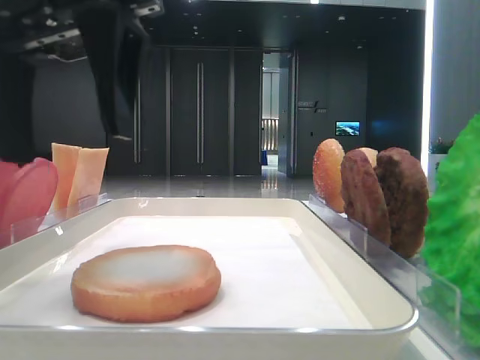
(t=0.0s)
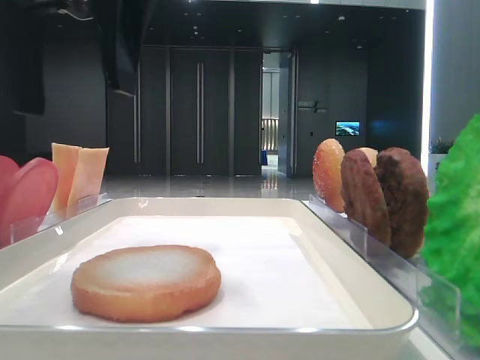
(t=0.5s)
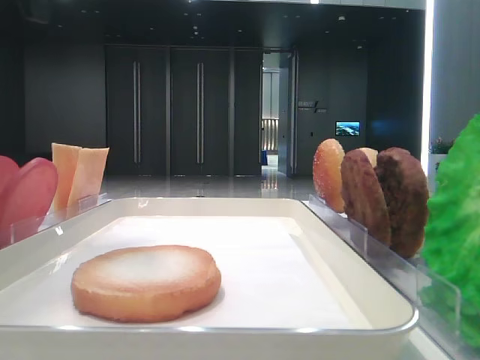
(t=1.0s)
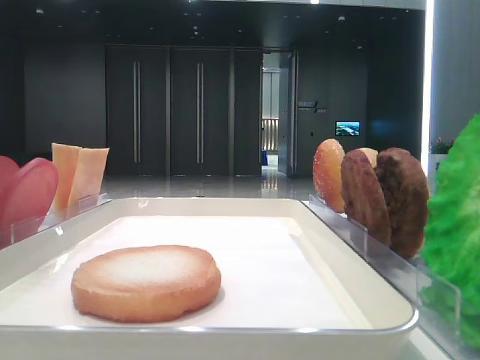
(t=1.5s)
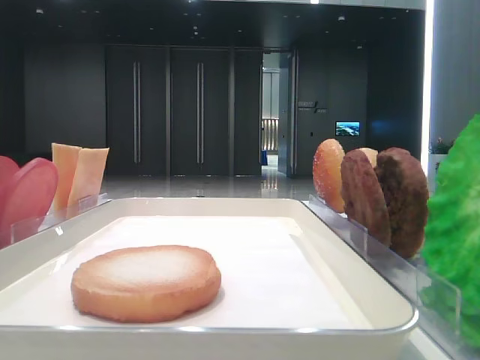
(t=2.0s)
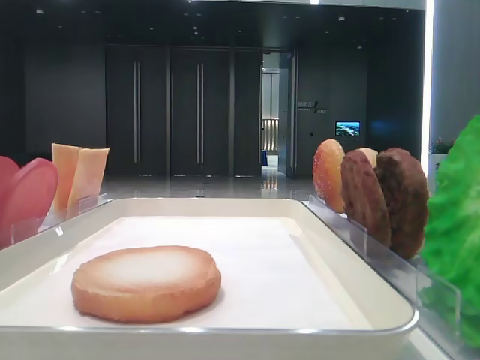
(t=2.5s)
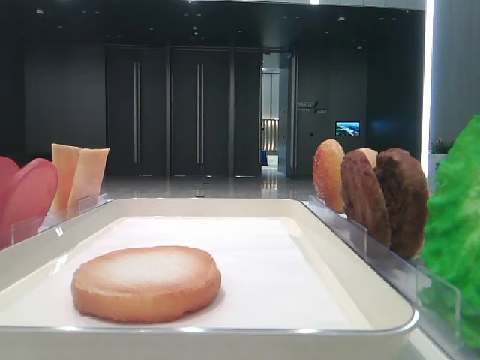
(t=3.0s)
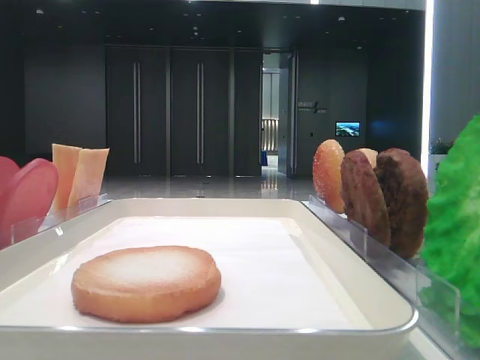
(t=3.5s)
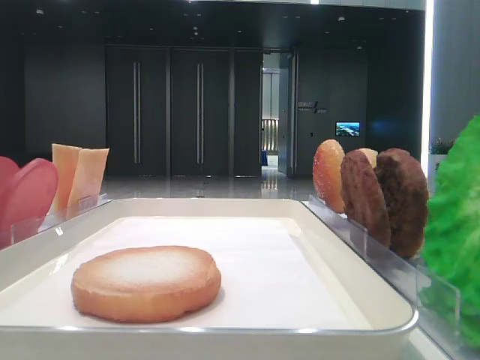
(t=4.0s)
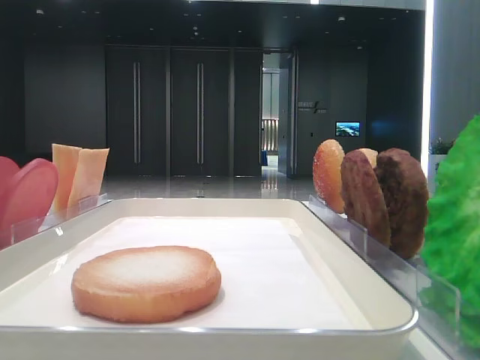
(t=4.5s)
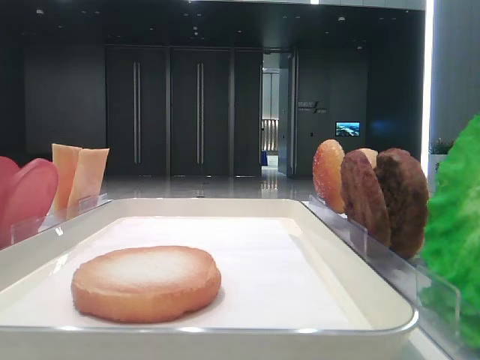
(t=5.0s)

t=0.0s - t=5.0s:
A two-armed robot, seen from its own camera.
t=0.0s - t=2.5s: The left gripper heads to the left, backward and upward, covering roughly 25 cm.

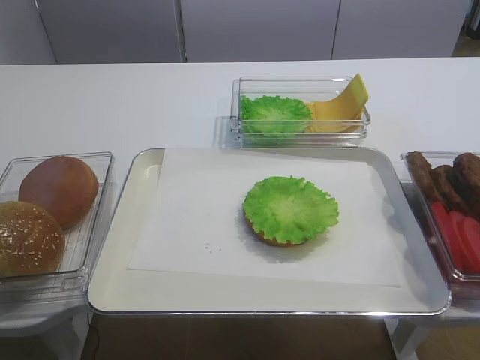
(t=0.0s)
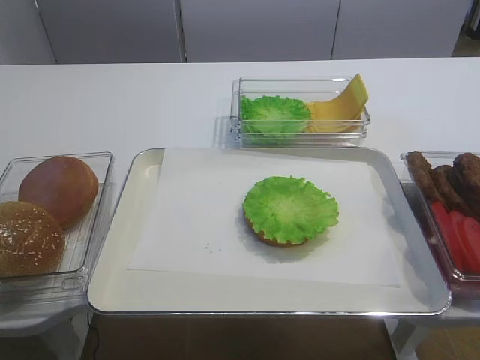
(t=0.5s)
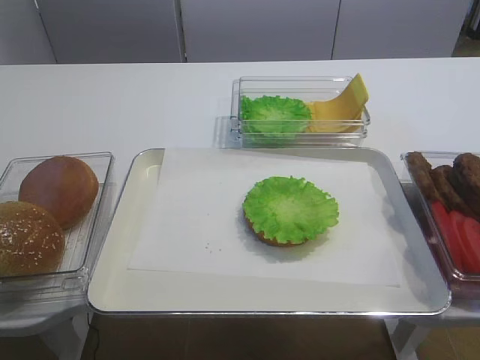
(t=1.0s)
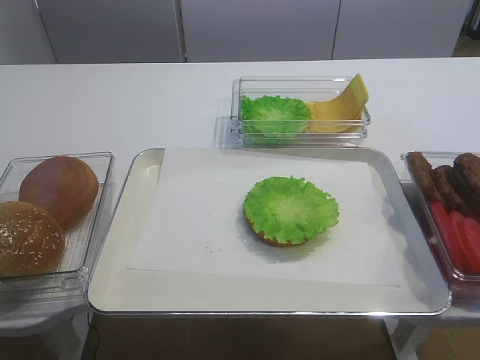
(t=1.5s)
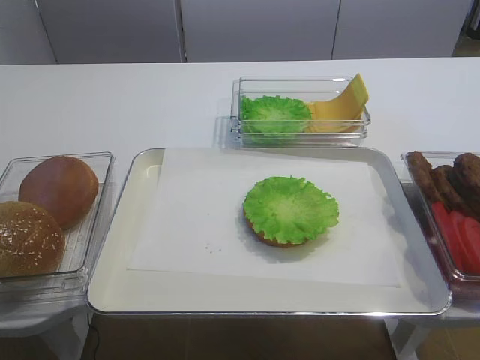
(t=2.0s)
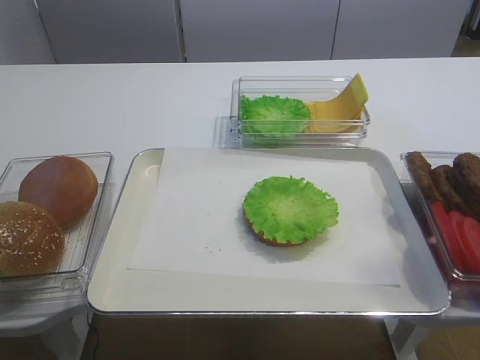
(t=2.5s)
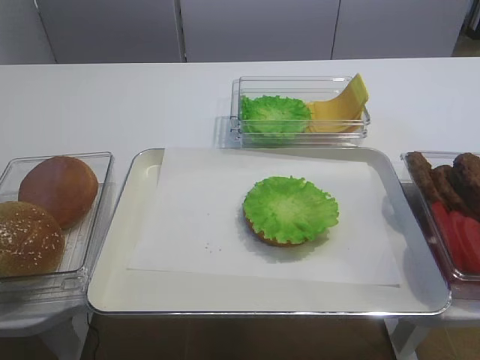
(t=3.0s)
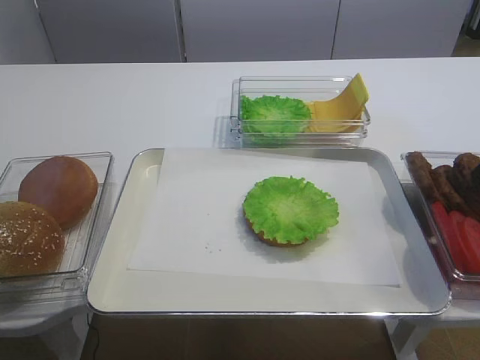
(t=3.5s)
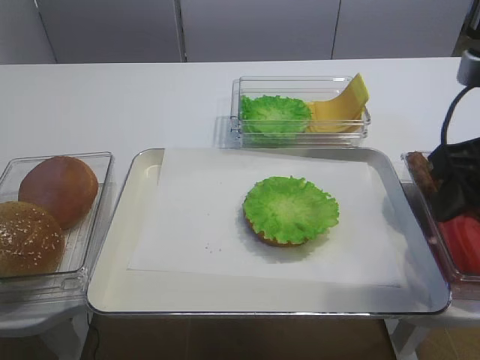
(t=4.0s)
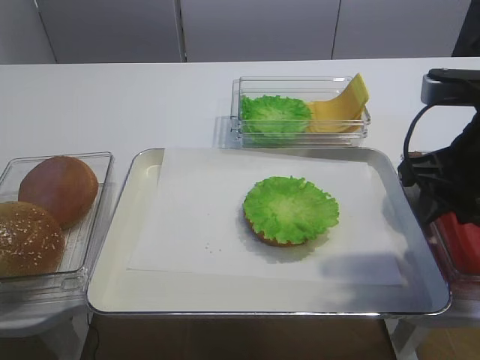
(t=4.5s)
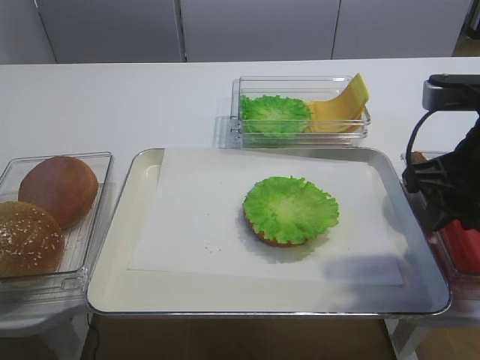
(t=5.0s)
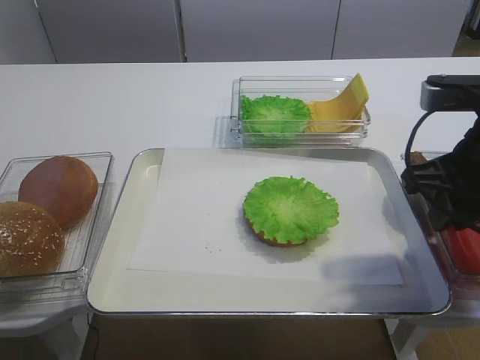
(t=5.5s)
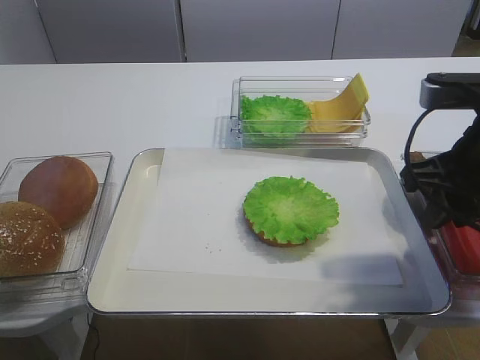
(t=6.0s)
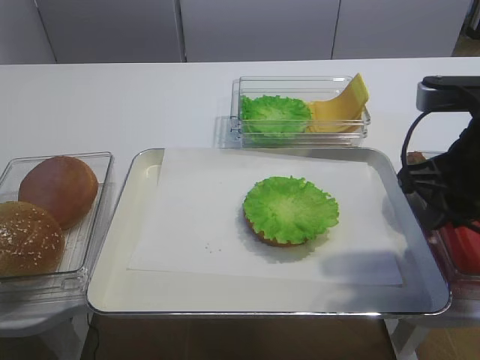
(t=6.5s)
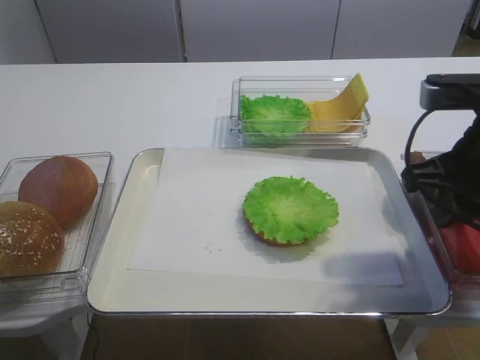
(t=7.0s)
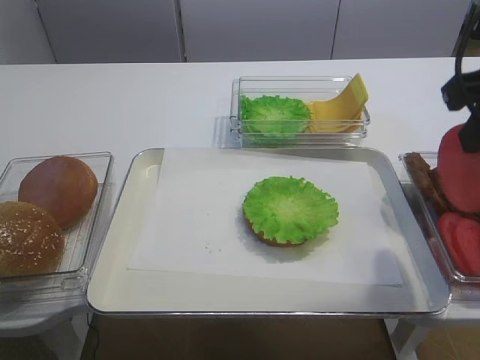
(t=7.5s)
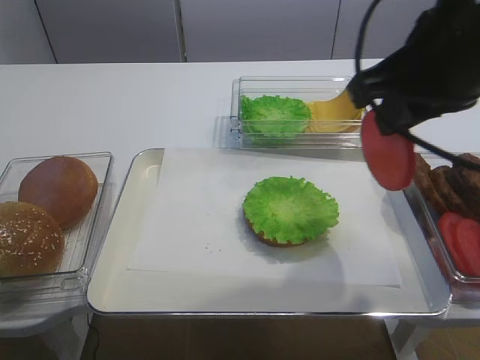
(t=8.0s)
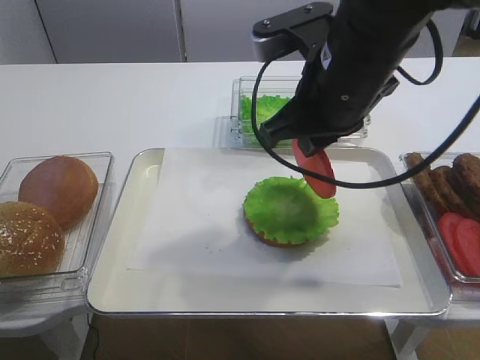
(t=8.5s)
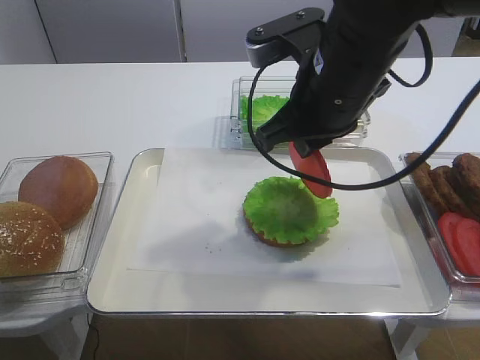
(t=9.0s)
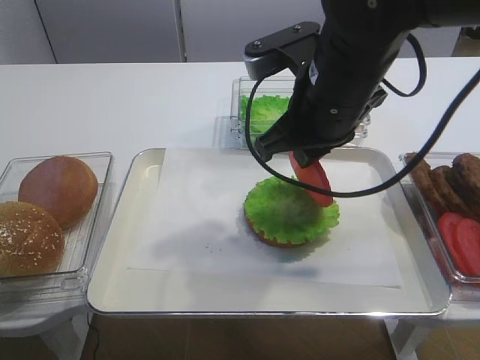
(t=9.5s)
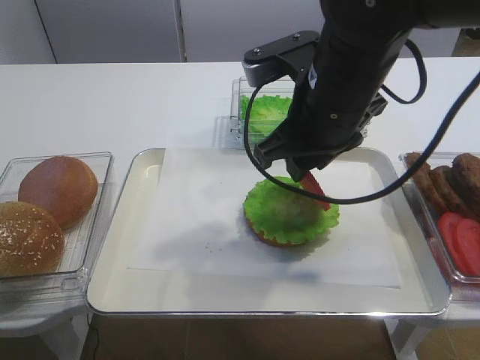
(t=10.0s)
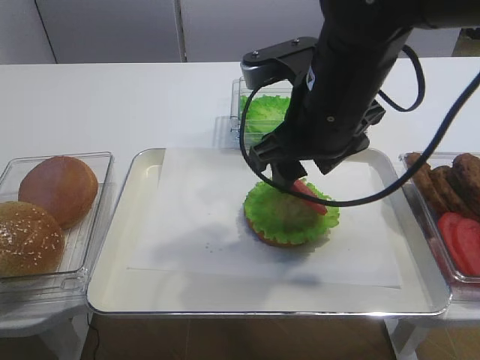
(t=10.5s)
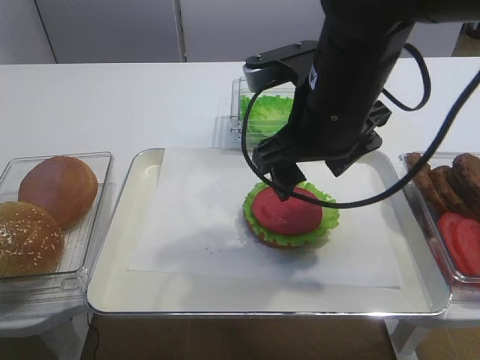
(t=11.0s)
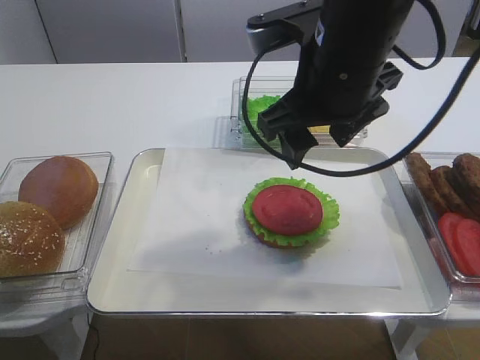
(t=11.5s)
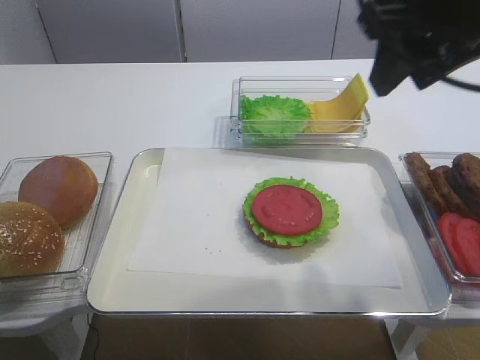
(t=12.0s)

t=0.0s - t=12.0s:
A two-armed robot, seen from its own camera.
Step, t=0.0s - t=7.5s: Pick up the tomato slice with the right gripper.
Step, t=8.0s - t=11.0s: Place the tomato slice on the lettuce leaf with the right gripper.
t=2.0s - t=4.0s: The right gripper travels forward by some 20 cm, and opens up.
t=4.0s - t=6.0s: The right gripper closes up.
t=6.0s - t=8.0s: The right gripper goes about 10 cm upward and to the left.
t=8.0s - t=10.0s: The right gripper shifts roughly 10 cm downward, to the left and forward, and opens up.
t=10.0s - t=12.0s: The right gripper moves upward and to the right, some 15 cm, and opens, then closes again.

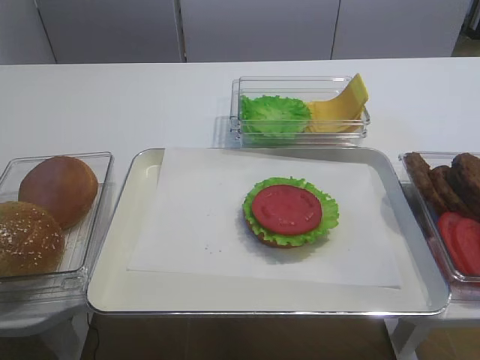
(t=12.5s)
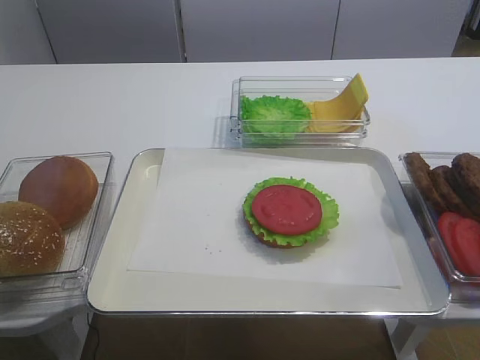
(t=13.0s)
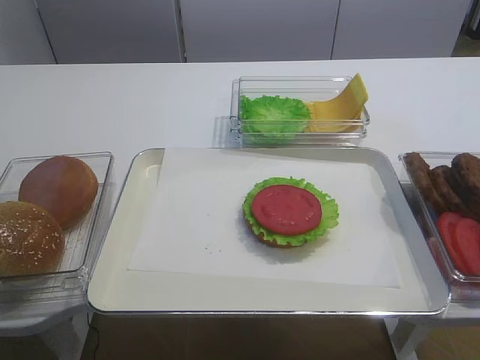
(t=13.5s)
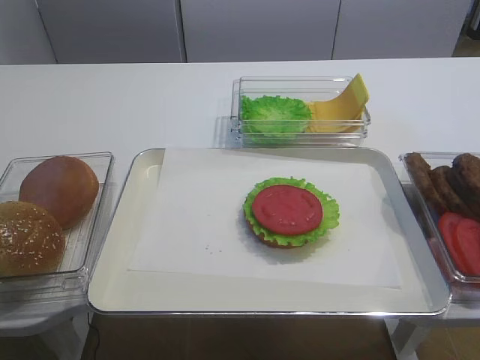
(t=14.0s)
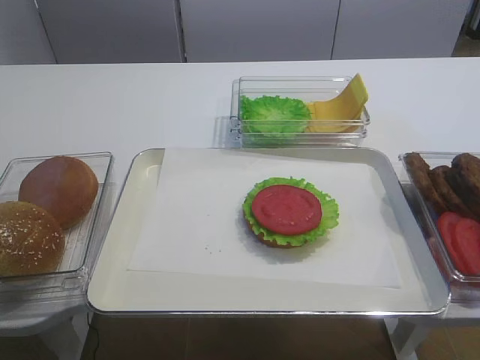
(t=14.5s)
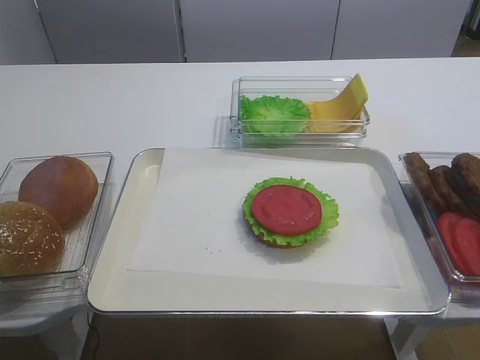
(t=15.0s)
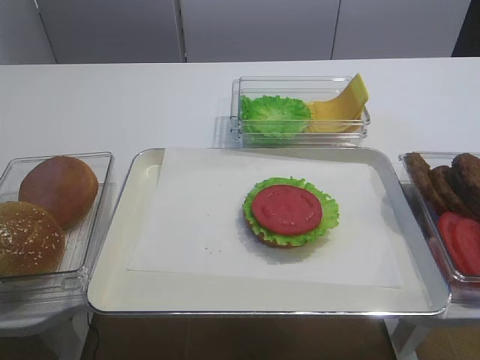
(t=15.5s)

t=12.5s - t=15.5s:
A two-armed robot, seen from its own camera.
t=12.5s - t=14.0s: The right gripper travels downward and backward by about 20 cm.
